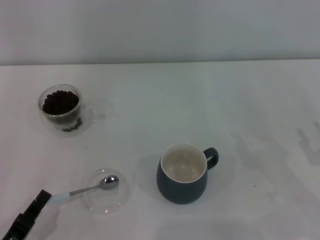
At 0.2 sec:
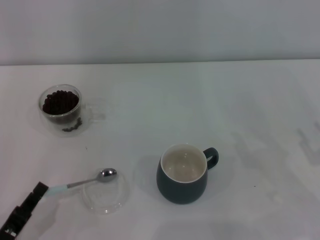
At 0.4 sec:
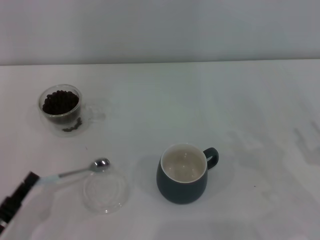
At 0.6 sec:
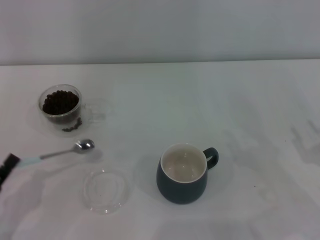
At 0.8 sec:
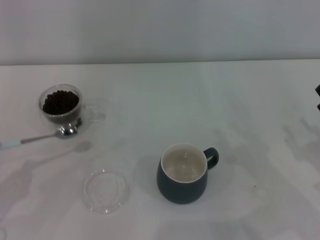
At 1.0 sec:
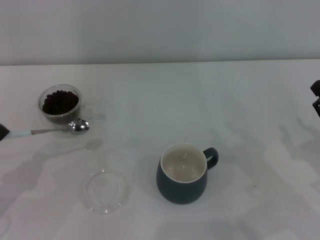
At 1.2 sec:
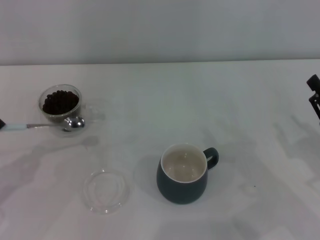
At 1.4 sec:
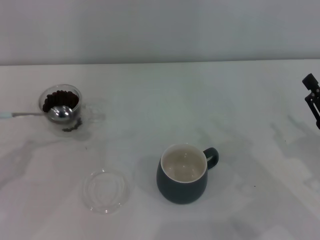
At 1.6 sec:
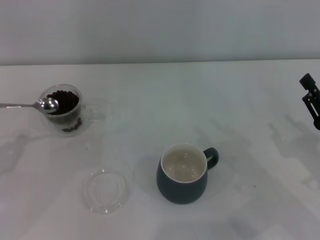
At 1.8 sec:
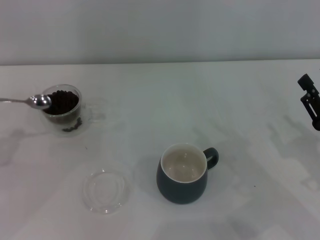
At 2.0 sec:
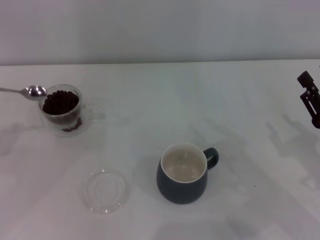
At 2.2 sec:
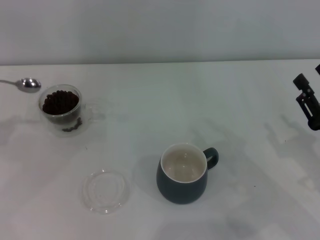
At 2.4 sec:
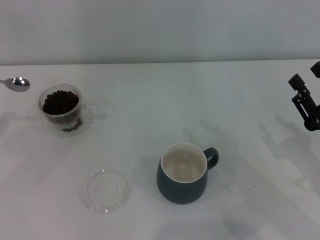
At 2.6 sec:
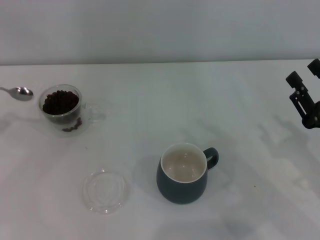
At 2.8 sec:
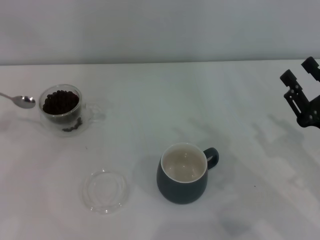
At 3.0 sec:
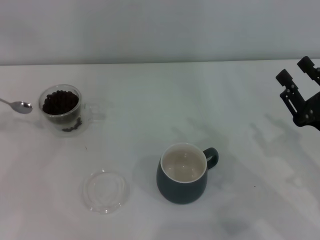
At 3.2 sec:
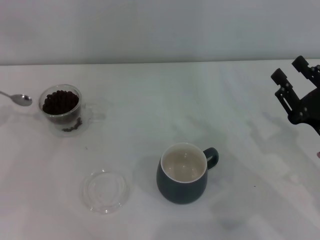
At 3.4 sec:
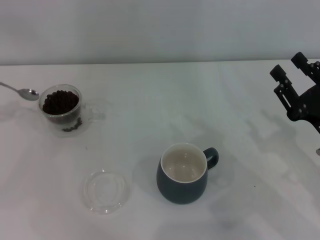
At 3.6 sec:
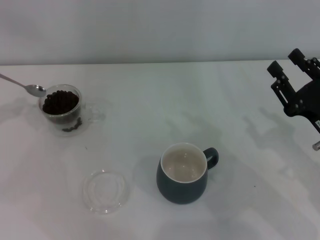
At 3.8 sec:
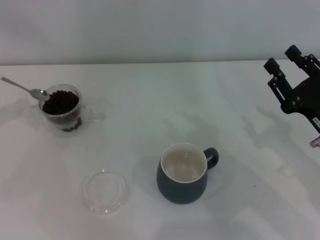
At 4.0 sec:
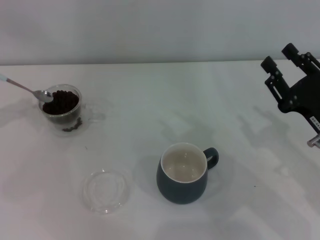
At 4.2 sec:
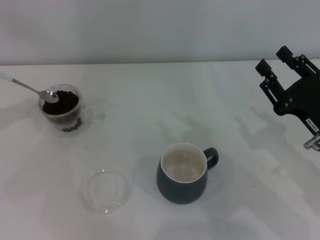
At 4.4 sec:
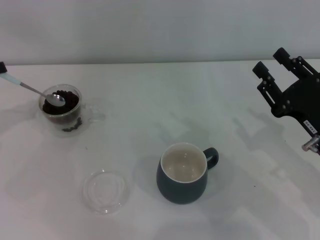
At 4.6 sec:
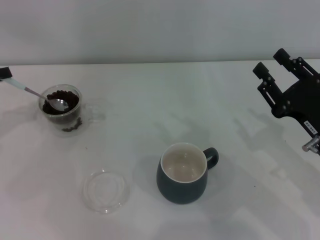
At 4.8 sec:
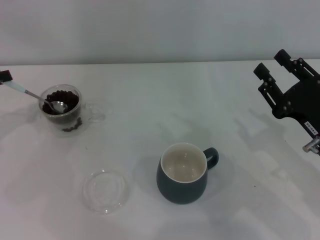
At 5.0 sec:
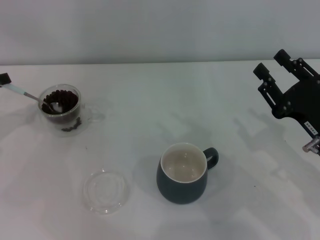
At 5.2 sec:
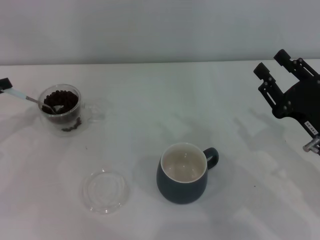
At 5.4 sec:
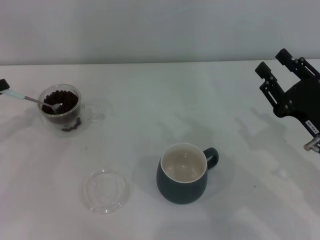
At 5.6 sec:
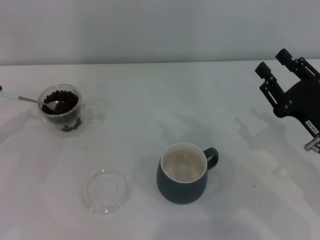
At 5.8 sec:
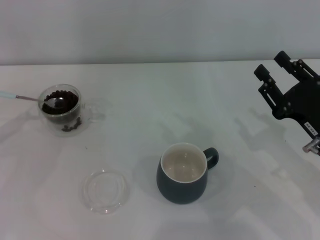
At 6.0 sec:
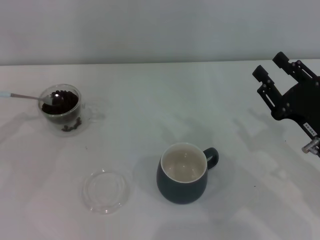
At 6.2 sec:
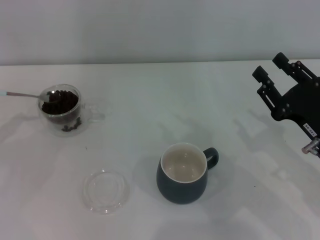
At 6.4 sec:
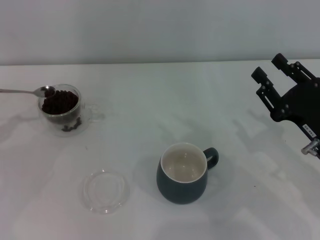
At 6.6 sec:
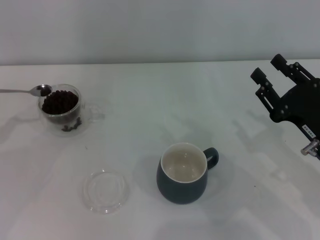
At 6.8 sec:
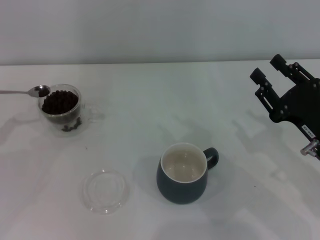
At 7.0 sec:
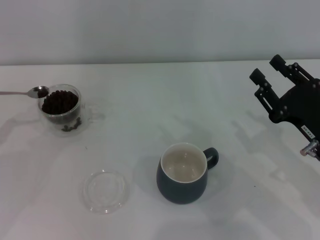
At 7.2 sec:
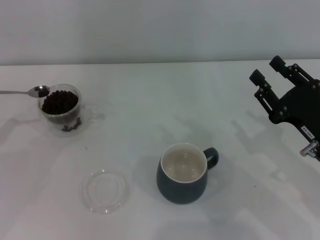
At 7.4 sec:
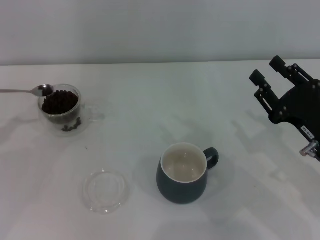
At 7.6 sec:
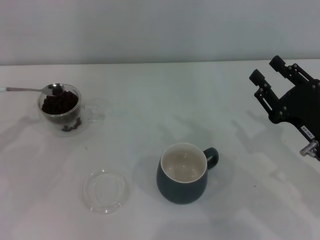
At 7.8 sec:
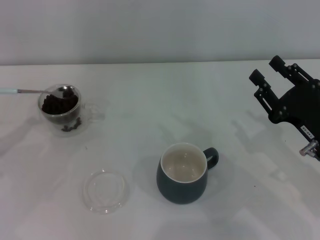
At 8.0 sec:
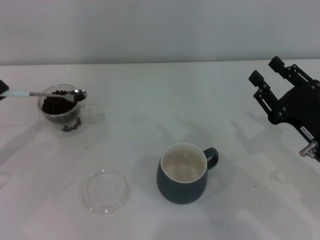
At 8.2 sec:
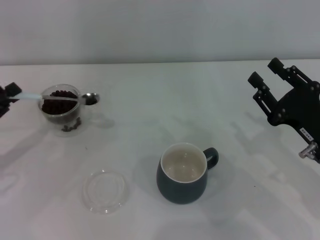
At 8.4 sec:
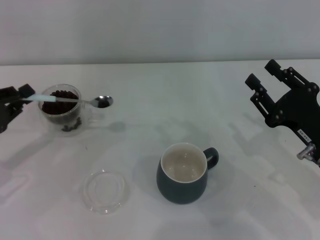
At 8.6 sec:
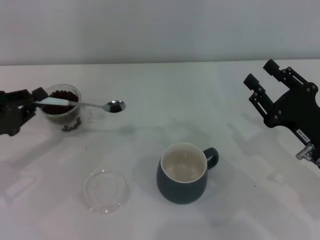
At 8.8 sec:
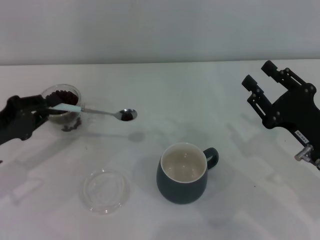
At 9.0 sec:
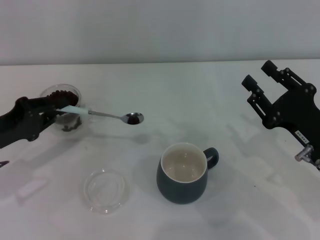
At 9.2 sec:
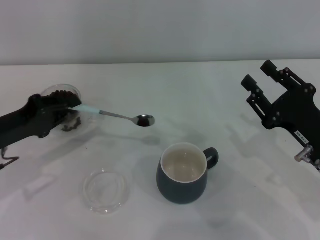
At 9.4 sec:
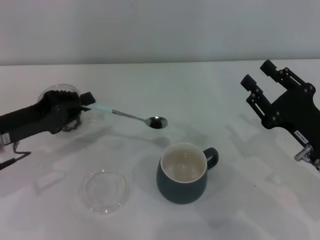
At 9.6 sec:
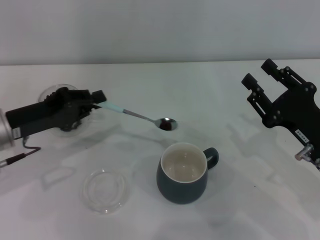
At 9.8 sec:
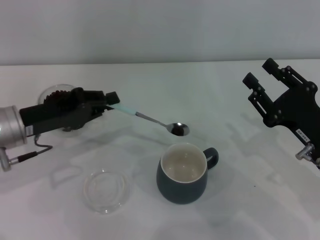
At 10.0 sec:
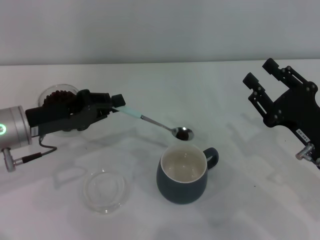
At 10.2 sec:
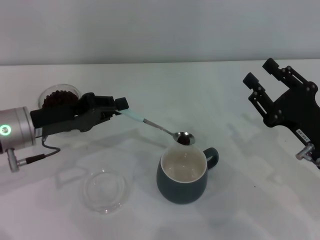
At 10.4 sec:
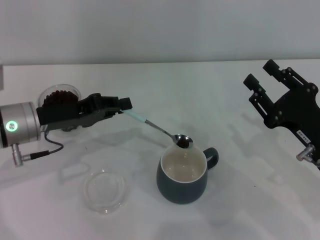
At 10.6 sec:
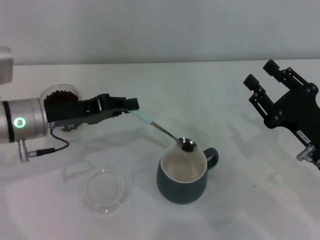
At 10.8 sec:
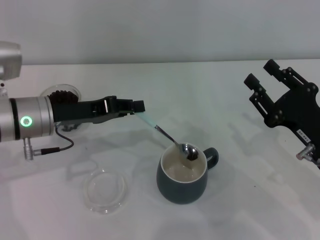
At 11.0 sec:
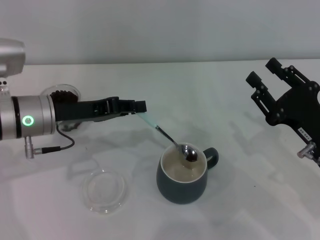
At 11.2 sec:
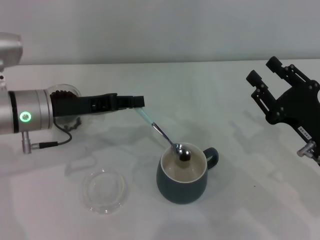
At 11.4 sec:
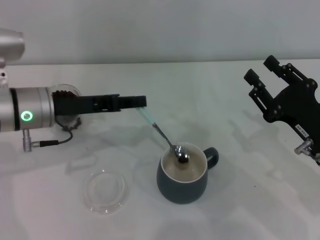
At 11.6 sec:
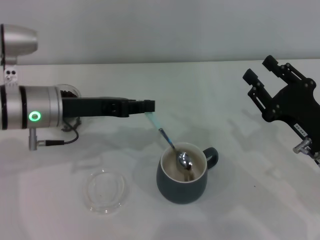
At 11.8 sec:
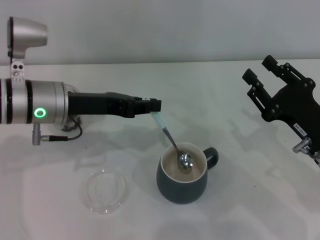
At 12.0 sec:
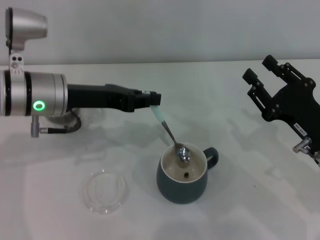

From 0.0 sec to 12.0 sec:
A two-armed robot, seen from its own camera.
Task of the whole recording: Use a blue spoon to take out the coffee beans from the glass and pour them into the gray cup.
From 0.0 sec to 1.6 sec: The left gripper goes some 20 cm to the left, upward and forward.
From 1.6 sec to 3.0 sec: The left gripper travels forward and upward by approximately 10 cm.
From 3.0 sec to 4.4 sec: The left gripper heads to the right, covering about 5 cm.
From 6.0 sec to 7.6 sec: The grippers make only small movements.
From 7.6 sec to 9.0 sec: The left gripper shifts approximately 10 cm to the right.
From 9.0 sec to 10.4 sec: The left gripper heads to the right, covering roughly 10 cm.
From 10.4 sec to 12.0 sec: The left gripper changes place by some 5 cm.

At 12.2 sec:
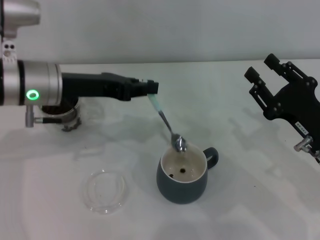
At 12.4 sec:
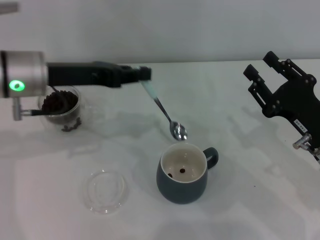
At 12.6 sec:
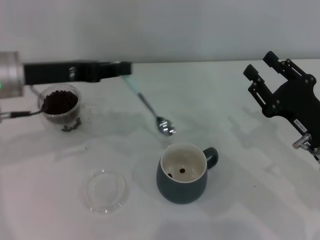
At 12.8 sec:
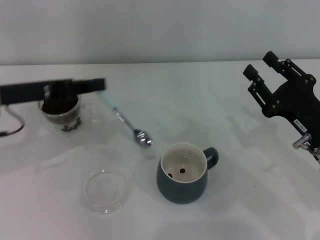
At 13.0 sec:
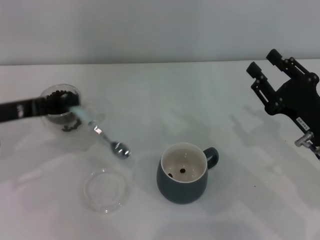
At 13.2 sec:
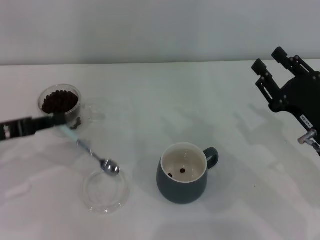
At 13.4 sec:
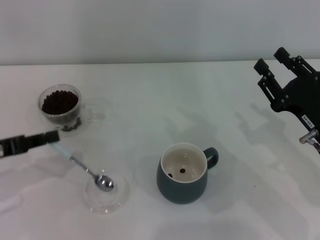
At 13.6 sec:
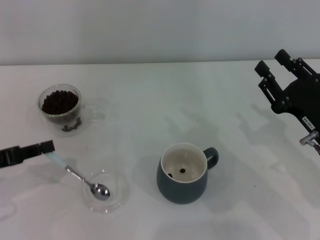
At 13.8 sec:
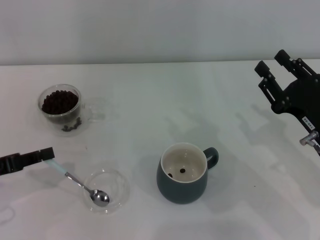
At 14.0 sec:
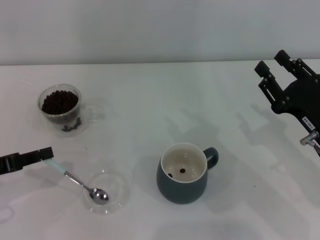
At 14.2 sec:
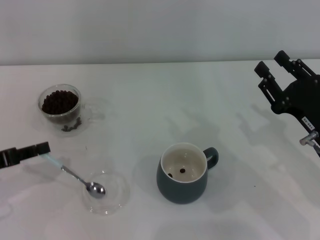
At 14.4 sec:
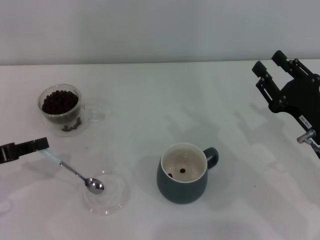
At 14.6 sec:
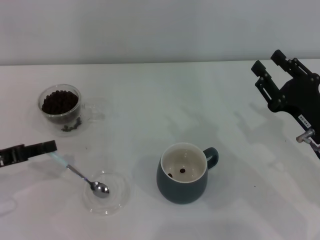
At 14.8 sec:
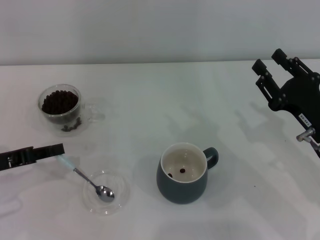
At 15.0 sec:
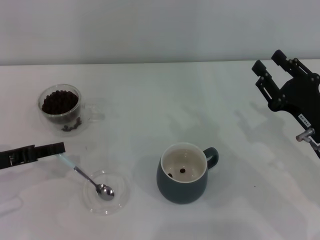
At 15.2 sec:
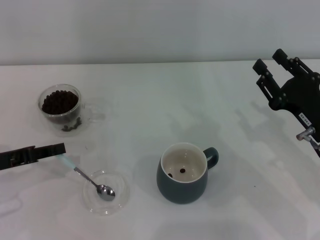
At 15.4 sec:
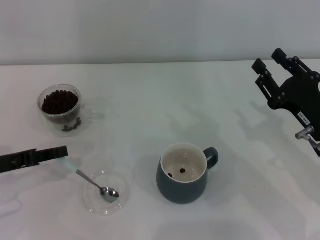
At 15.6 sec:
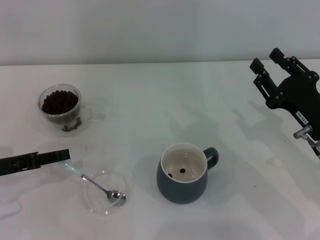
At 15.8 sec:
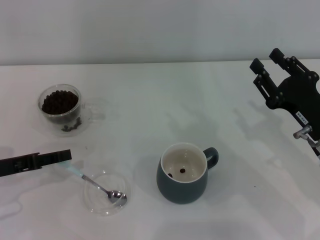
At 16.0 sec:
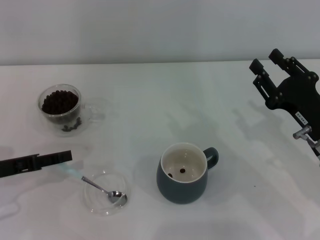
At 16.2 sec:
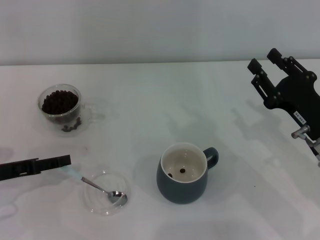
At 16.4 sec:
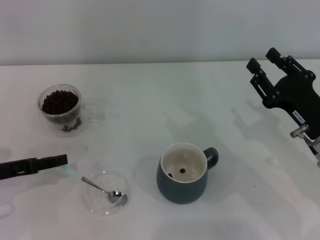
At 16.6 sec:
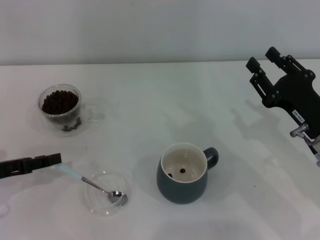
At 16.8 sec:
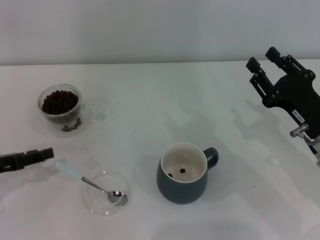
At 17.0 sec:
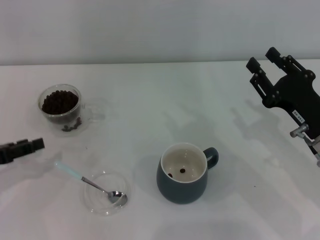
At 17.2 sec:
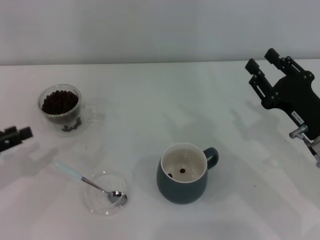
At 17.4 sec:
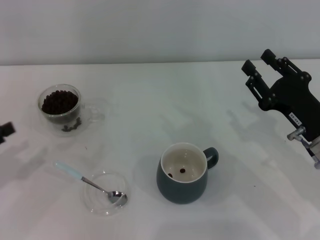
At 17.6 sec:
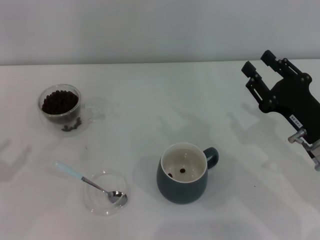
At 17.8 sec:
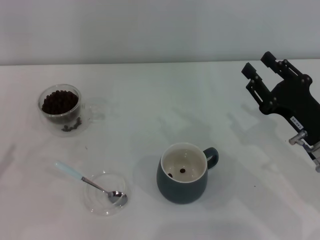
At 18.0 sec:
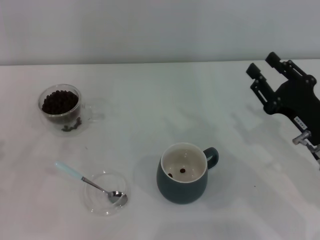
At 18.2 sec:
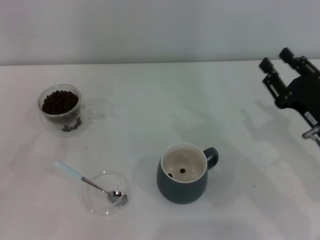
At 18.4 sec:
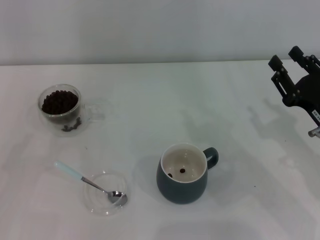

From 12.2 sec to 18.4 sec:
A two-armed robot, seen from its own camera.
Task of the whole recording: Use a blue spoon to take out the coffee beans from the glass and pour them into the gray cup.
From 12.2 sec to 13.8 sec: The left gripper travels to the left, backward and downward by roughly 20 cm.
From 13.8 sec to 15.4 sec: The grippers make only small movements.
From 15.4 sec to 16.8 sec: The left gripper opens its fingers.
From 16.8 sec to 18.4 sec: The left gripper goes some 10 cm backward.
